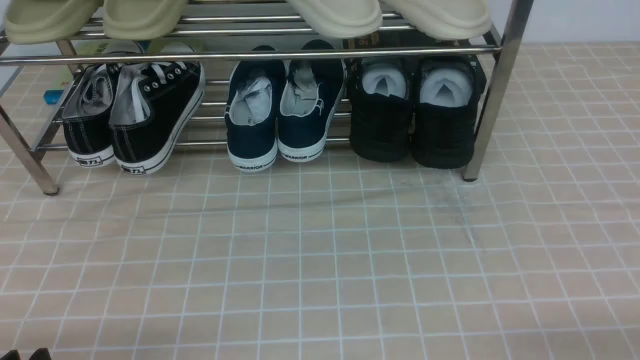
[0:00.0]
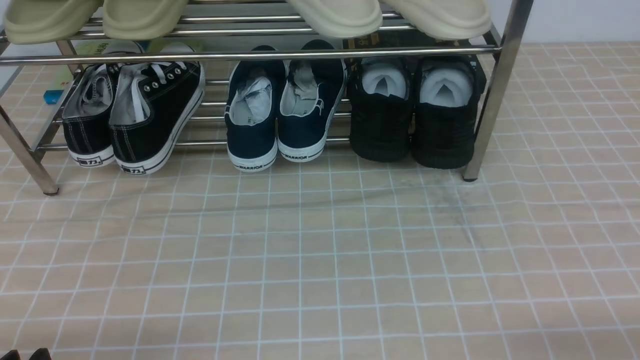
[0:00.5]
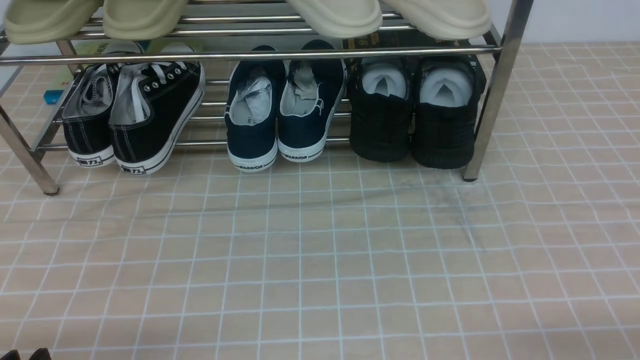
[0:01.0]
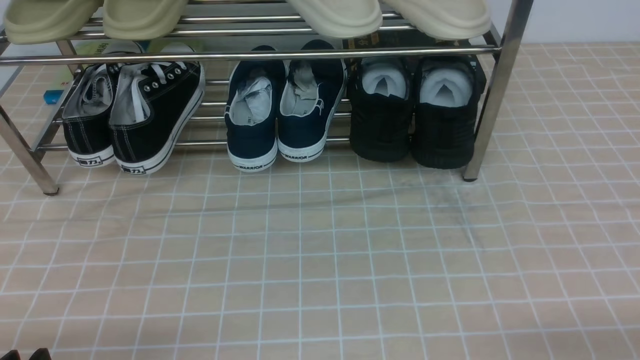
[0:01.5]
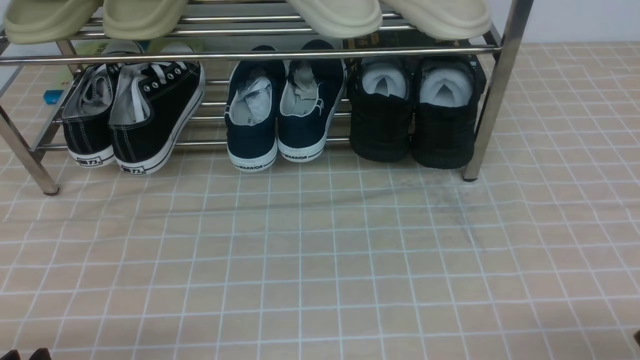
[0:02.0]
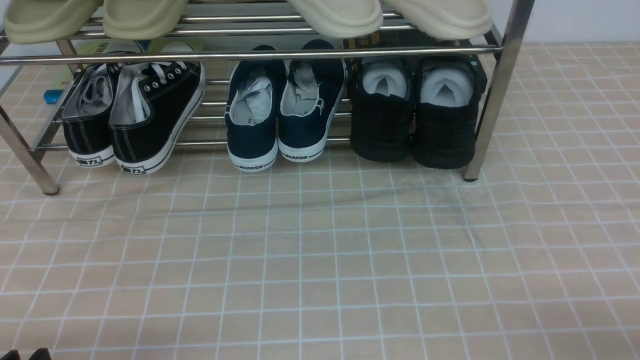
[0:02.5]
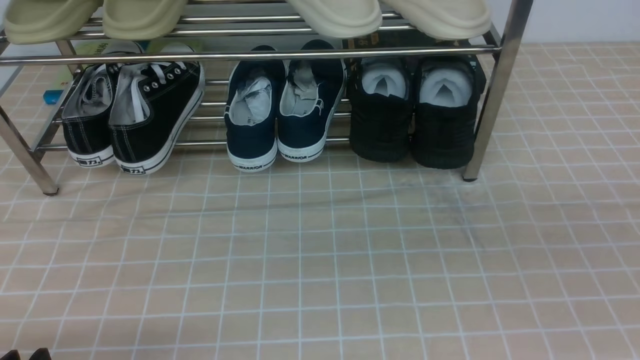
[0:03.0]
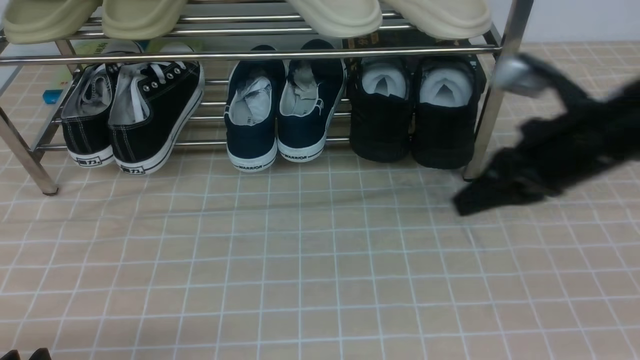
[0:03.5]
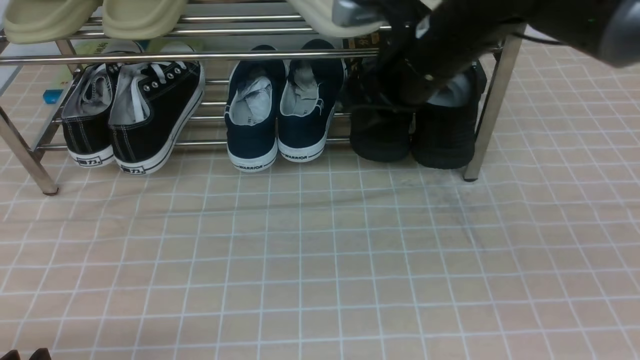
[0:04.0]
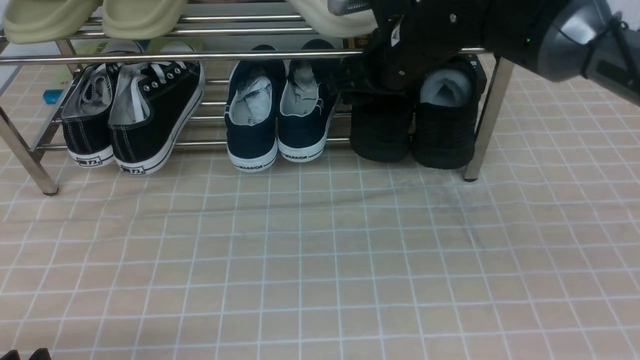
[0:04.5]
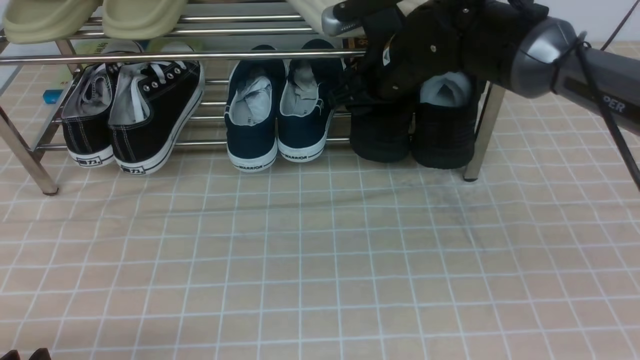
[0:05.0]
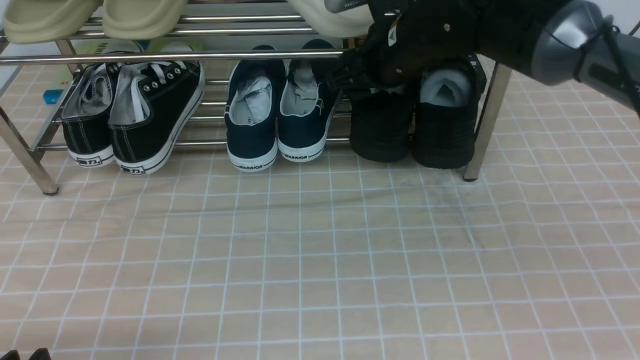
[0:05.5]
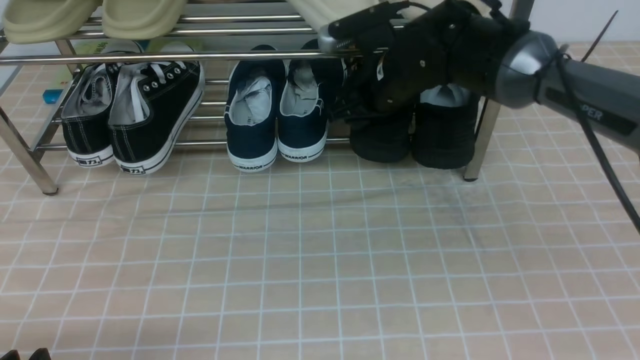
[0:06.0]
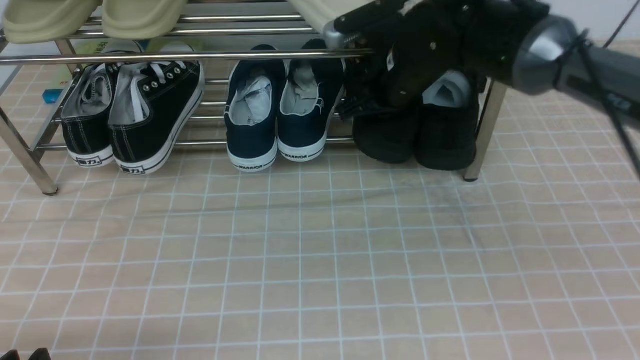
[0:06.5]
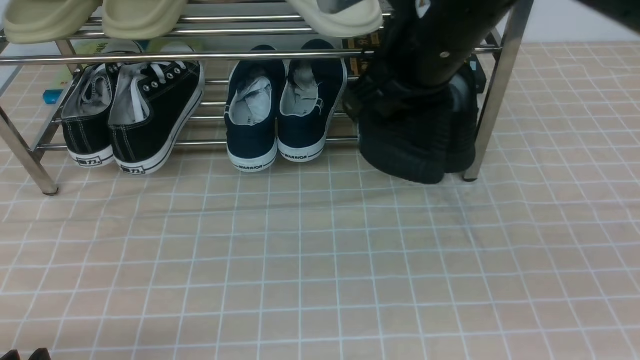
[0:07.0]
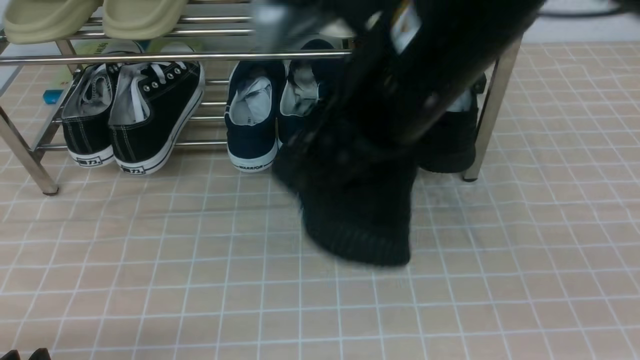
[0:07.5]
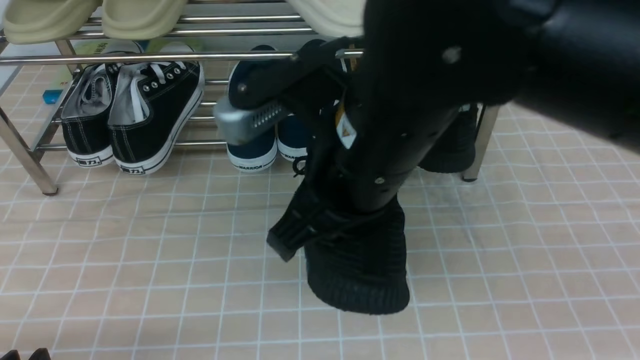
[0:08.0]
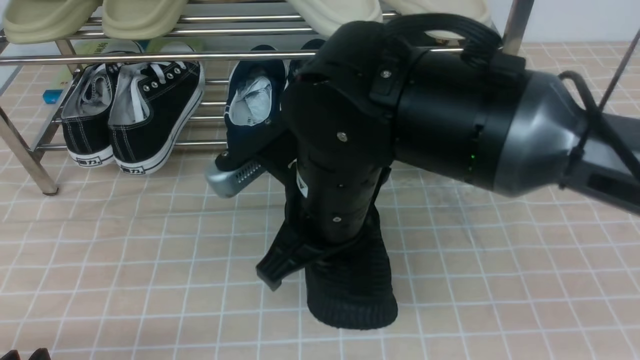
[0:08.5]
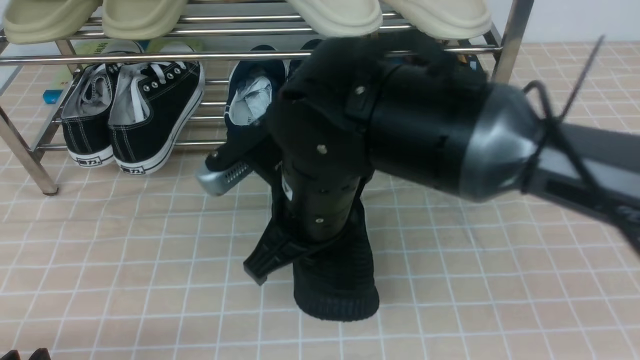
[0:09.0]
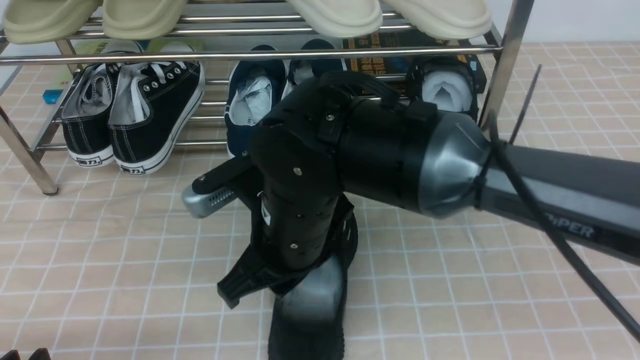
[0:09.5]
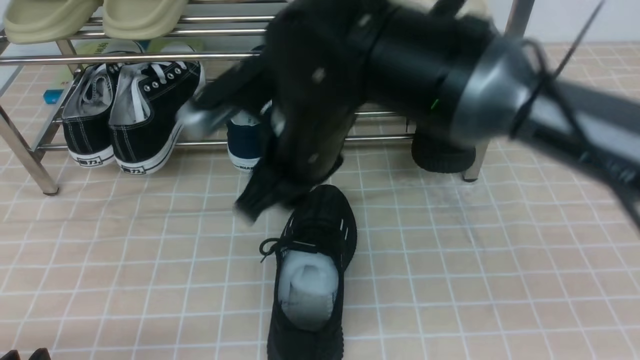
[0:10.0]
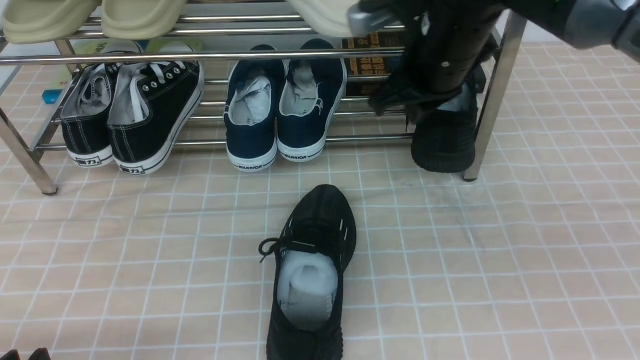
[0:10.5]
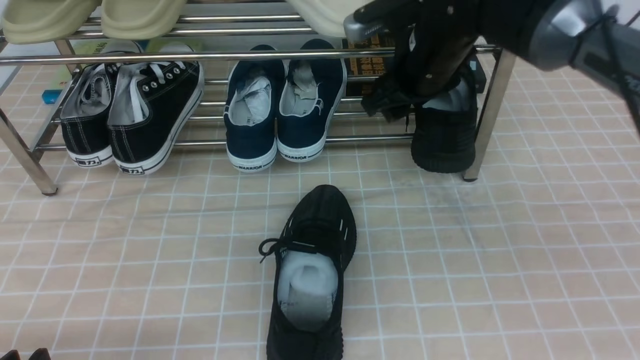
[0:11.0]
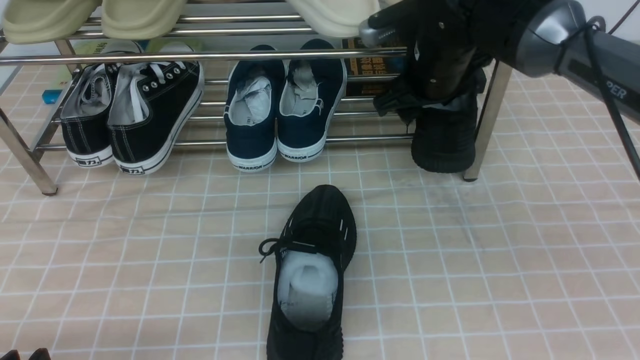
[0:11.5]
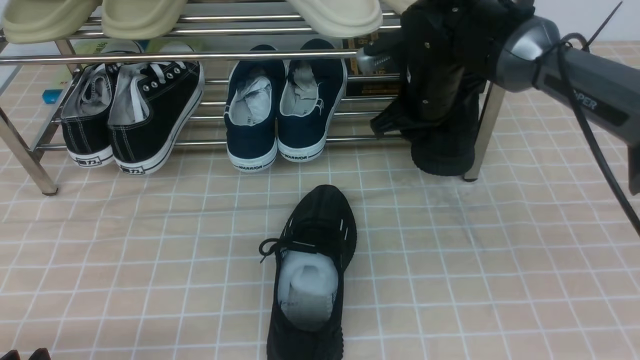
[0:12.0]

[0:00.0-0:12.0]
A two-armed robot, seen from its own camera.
Step, 0:00.0 to 0:06.0: use the right arm to clamp a shoe on the right side of the shoe rack.
Step, 0:06.5 to 0:09.5: use the right arm to take out the clamped shoe from the shoe rack and put it down.
0:02.0 to 0:04.0: The right gripper shifts roughly 40 cm forward, to the left and upward.
0:04.0 to 0:06.0: The right gripper heads forward and downward, covering about 10 cm, and opens its fingers.
0:06.0 to 0:08.0: The right gripper moves backward, about 20 cm, and closes its fingers.
0:08.0 to 0:10.0: The right gripper moves forward, some 10 cm, and opens.
0:10.0 to 0:12.0: The right gripper travels forward, to the right and downward by some 20 cm, and opens, then closes again.

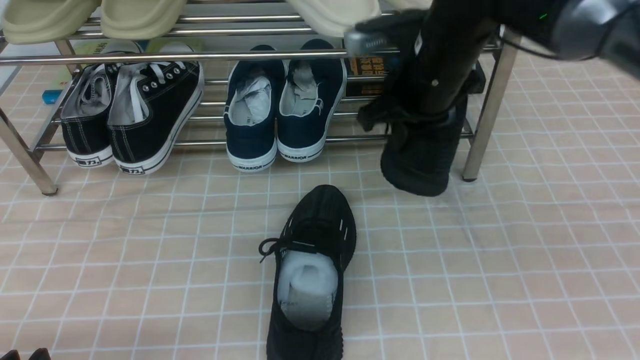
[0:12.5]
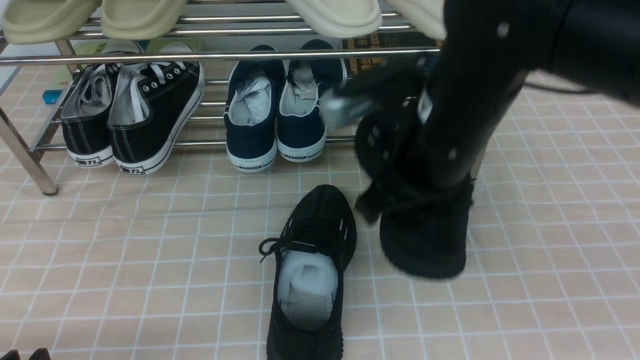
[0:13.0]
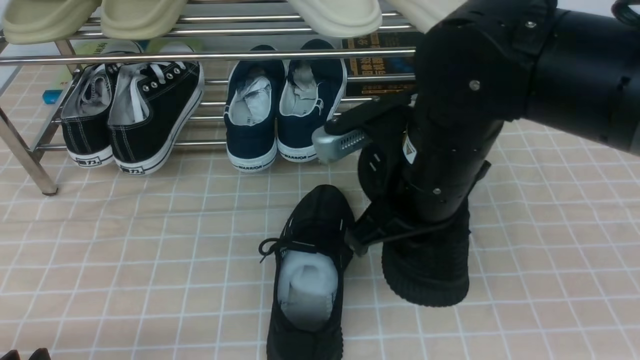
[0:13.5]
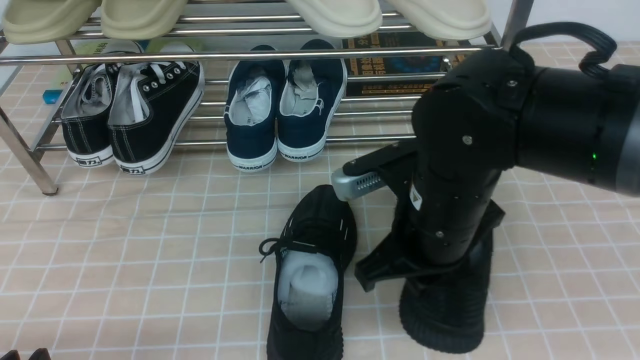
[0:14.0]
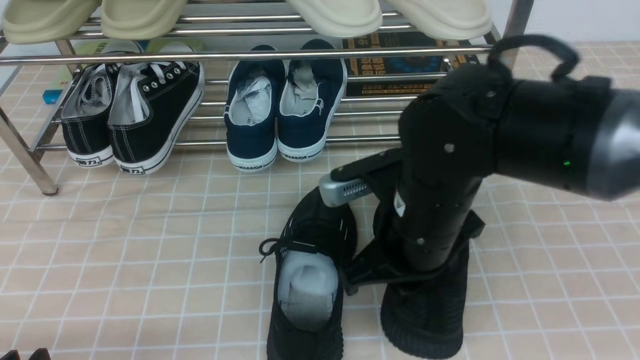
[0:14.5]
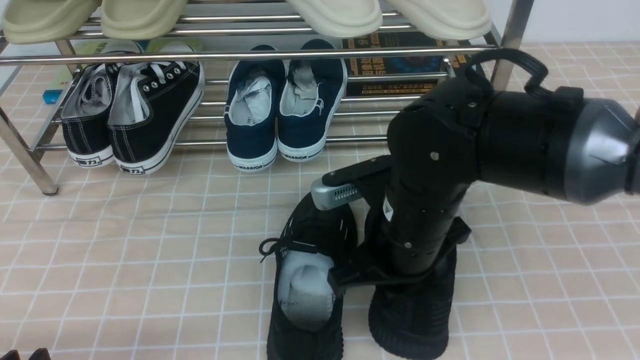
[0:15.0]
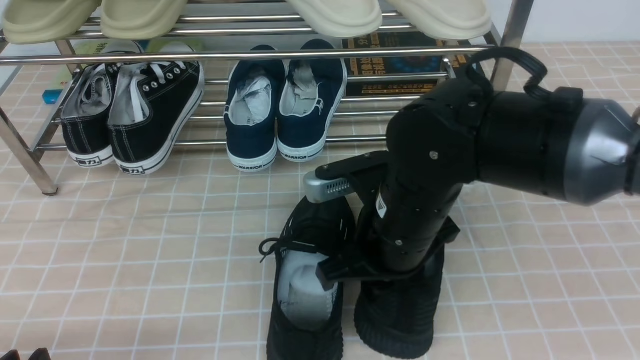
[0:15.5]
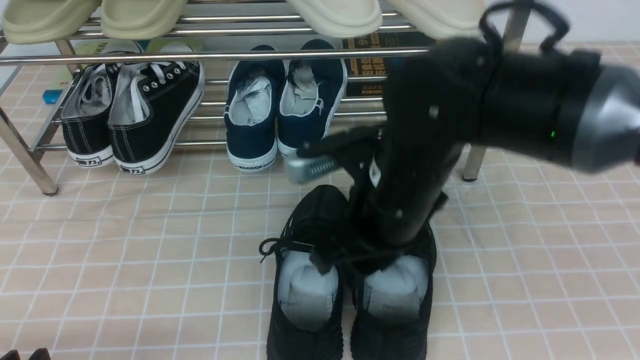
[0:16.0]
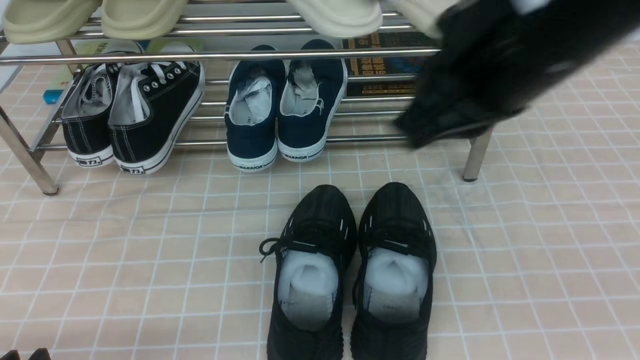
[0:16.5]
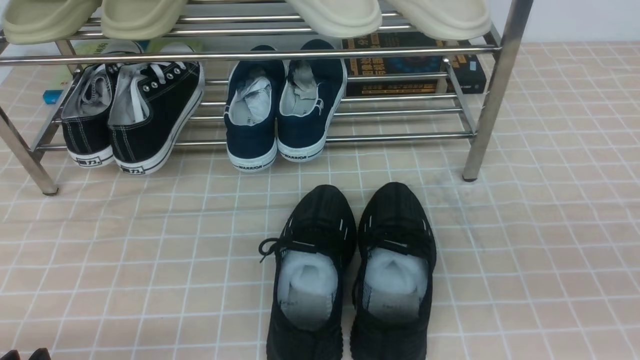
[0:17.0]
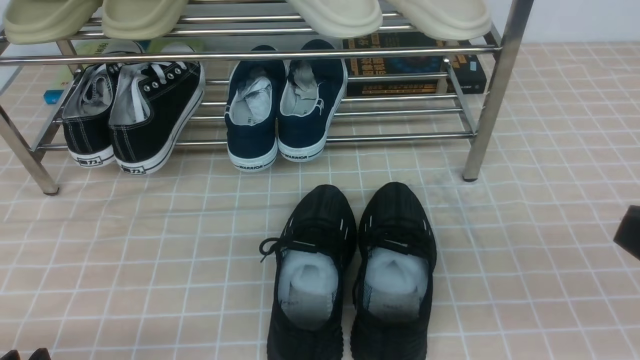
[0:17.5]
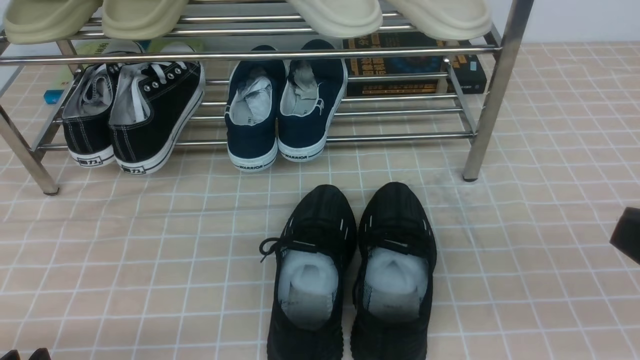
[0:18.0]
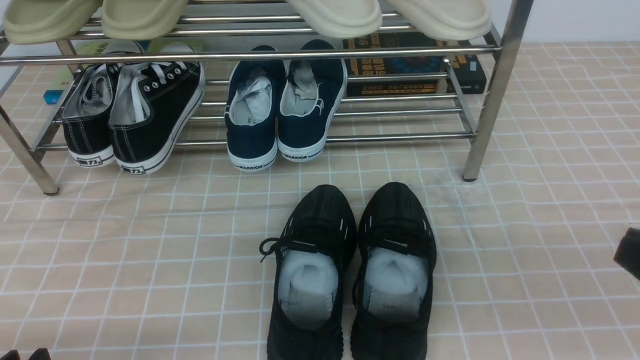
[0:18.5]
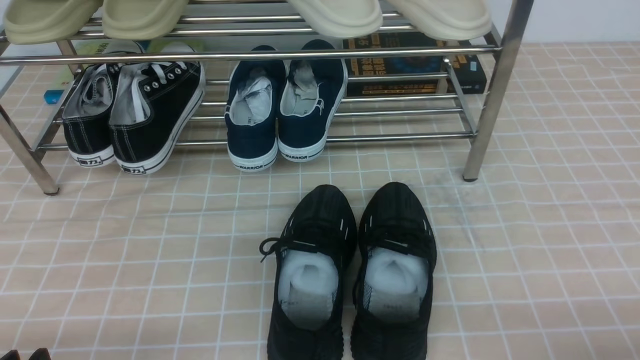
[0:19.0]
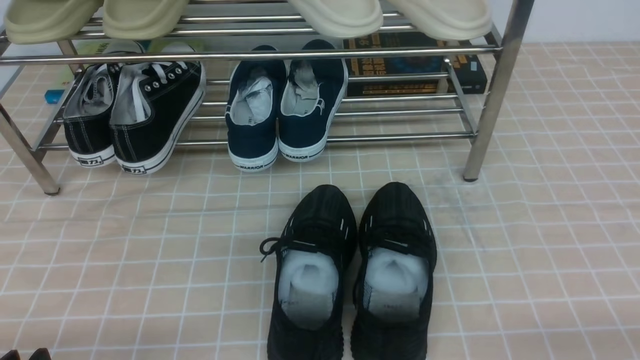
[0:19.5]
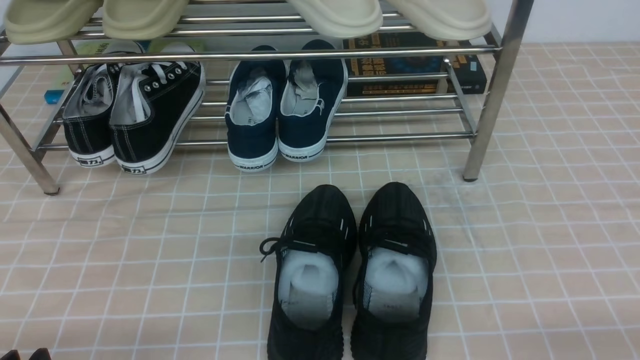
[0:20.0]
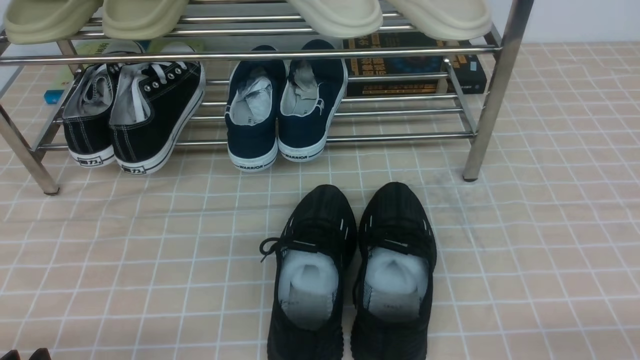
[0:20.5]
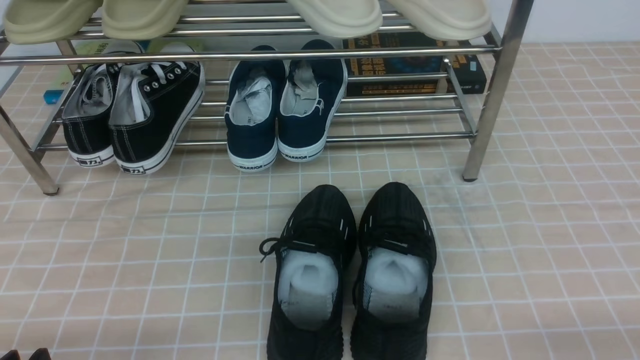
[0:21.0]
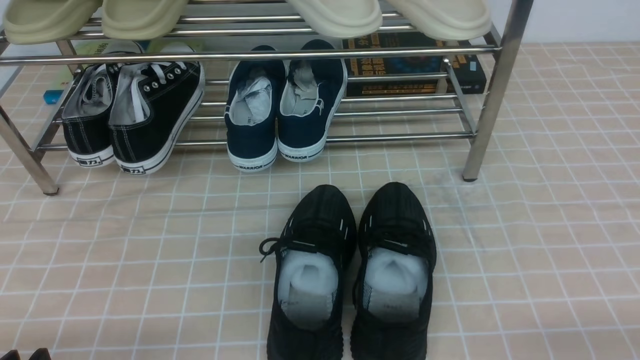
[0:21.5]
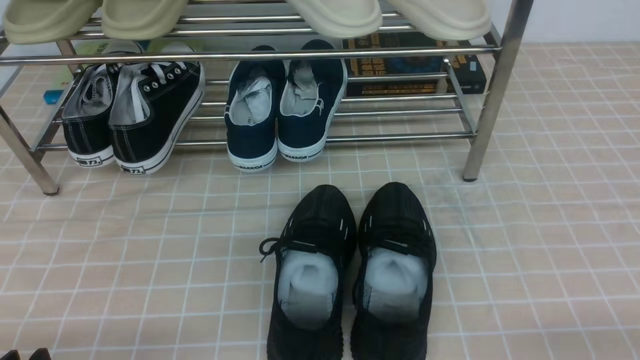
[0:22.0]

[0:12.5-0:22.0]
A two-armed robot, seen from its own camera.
Step, 0:12.5 to 0:16.0: use the right arm to take out the clamped shoe from the shoe rack and put it down.
0:12.5 to 0:14.5: The right gripper moves backward and downward, about 15 cm.
0:14.5 to 0:16.5: The right gripper shifts about 20 cm upward, and opens, then closes once more.
0:16.5 to 0:18.0: The right gripper moves to the right, backward and downward, some 20 cm.
0:20.0 to 0:22.0: Neither gripper changes place.
